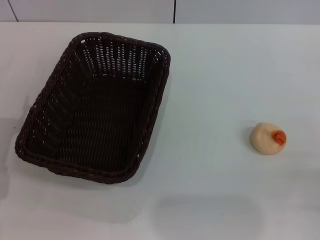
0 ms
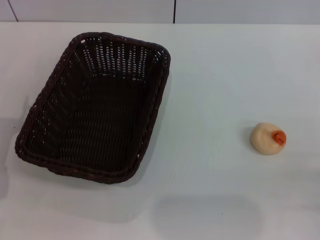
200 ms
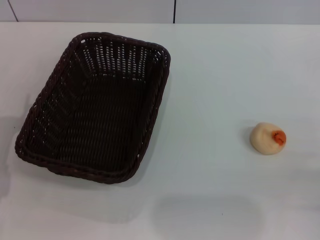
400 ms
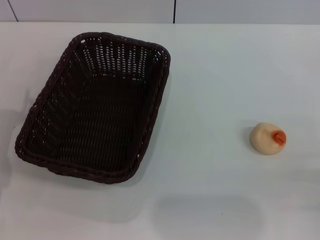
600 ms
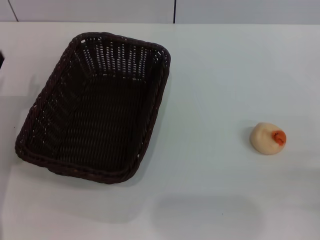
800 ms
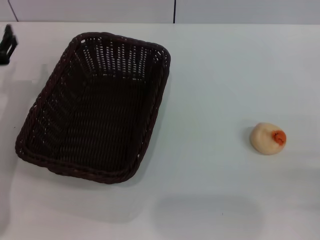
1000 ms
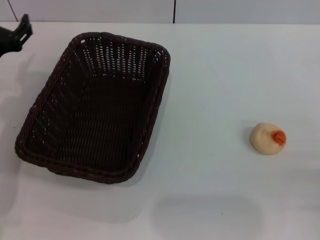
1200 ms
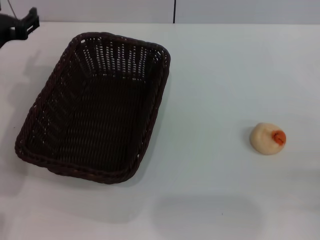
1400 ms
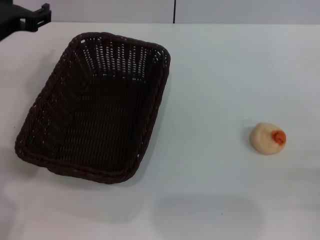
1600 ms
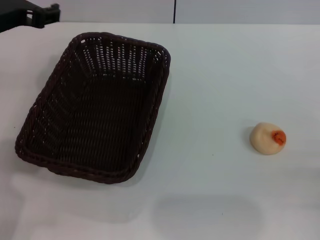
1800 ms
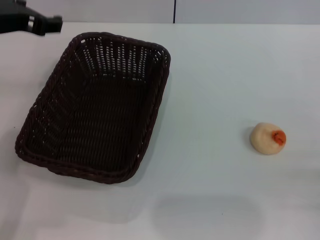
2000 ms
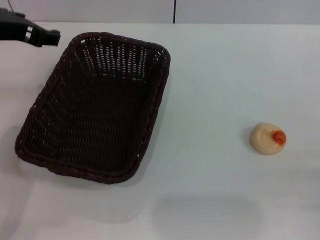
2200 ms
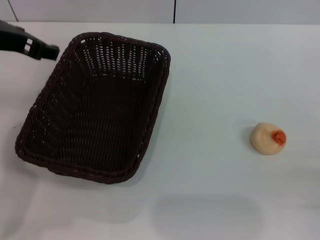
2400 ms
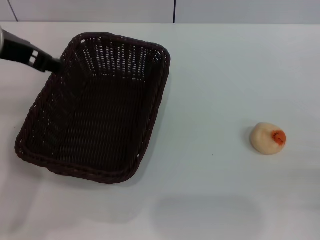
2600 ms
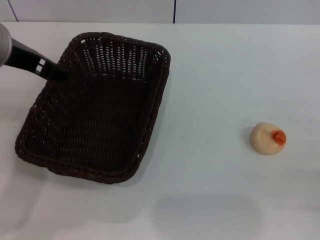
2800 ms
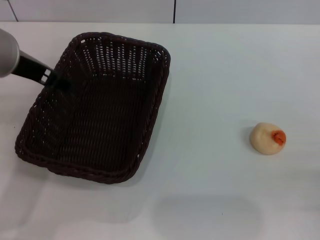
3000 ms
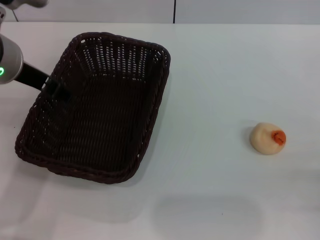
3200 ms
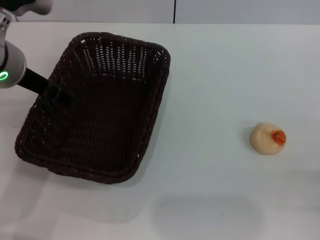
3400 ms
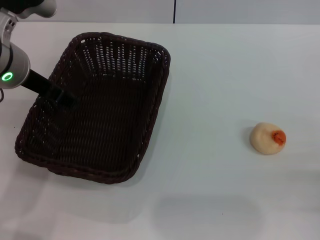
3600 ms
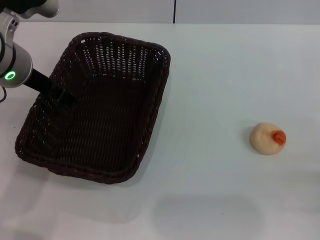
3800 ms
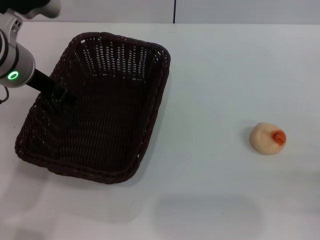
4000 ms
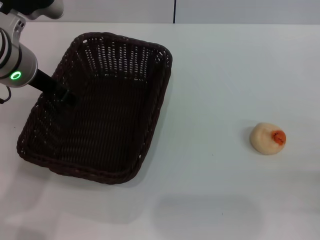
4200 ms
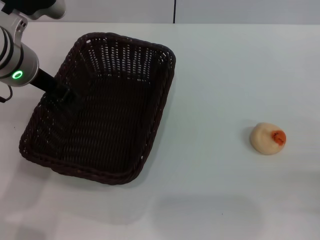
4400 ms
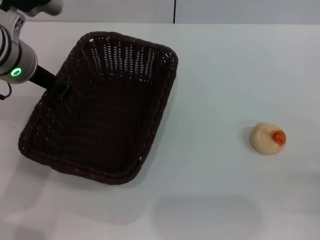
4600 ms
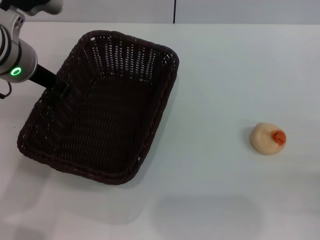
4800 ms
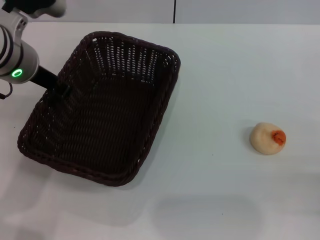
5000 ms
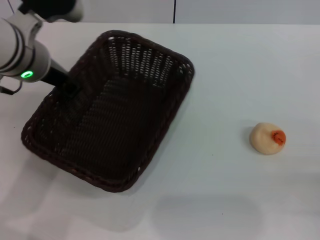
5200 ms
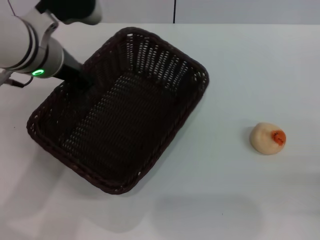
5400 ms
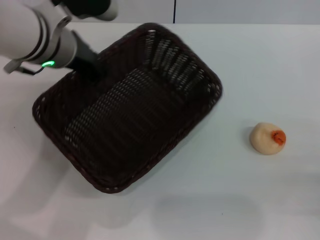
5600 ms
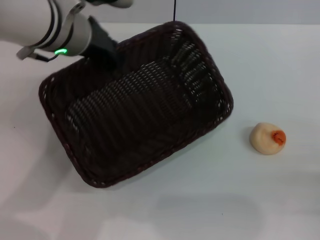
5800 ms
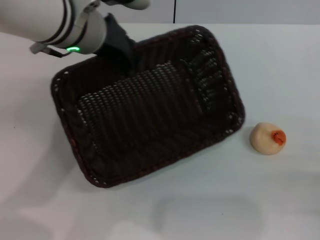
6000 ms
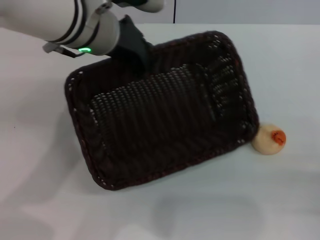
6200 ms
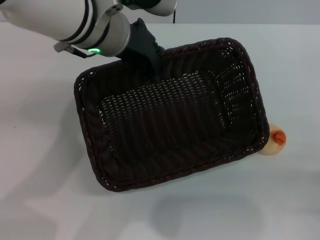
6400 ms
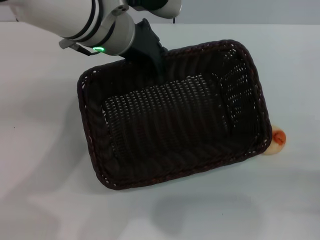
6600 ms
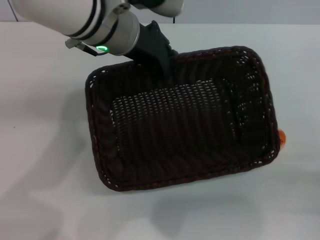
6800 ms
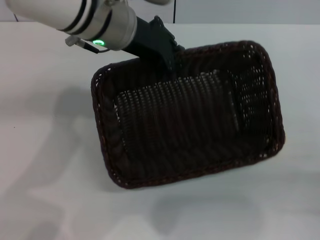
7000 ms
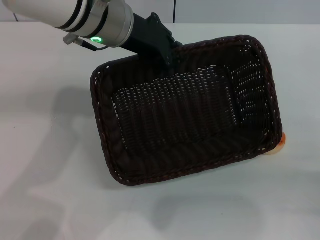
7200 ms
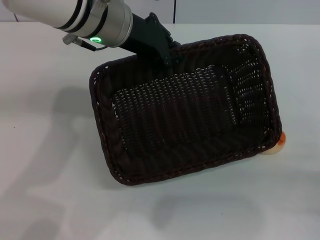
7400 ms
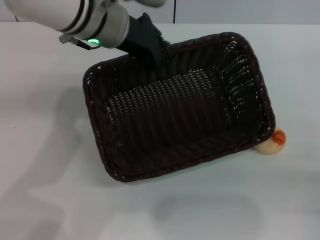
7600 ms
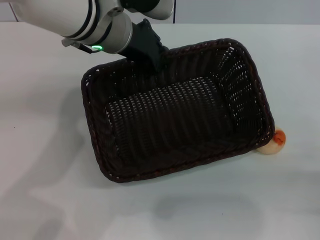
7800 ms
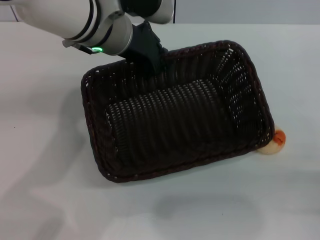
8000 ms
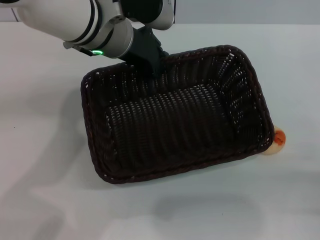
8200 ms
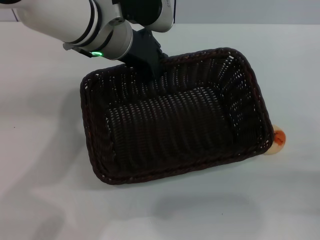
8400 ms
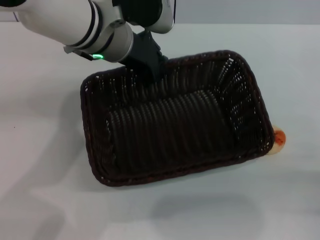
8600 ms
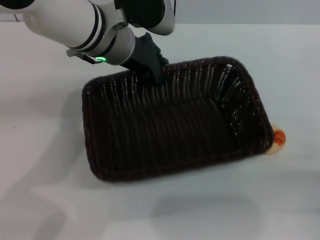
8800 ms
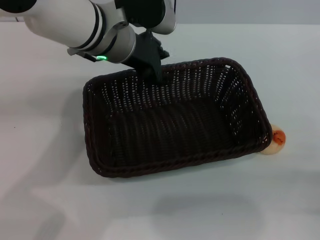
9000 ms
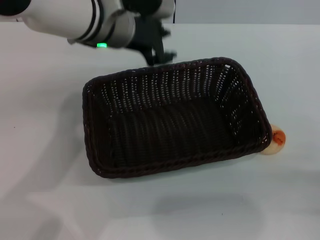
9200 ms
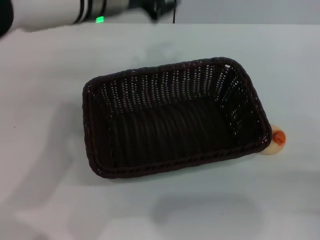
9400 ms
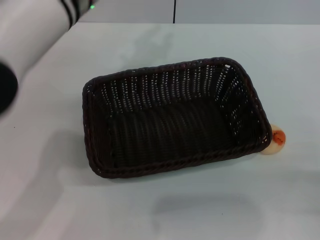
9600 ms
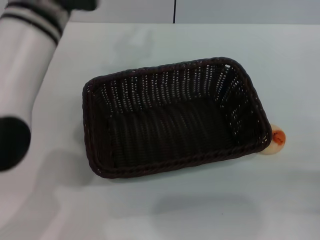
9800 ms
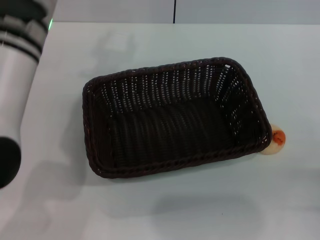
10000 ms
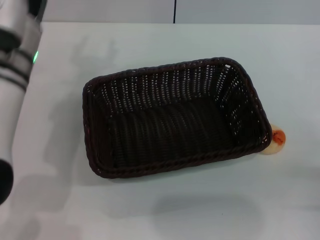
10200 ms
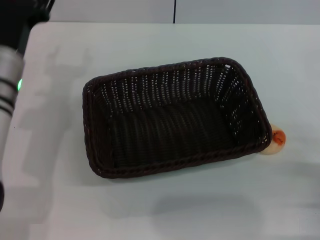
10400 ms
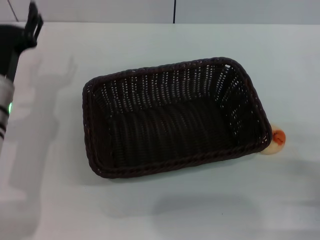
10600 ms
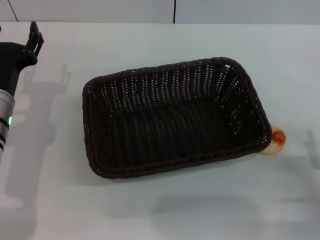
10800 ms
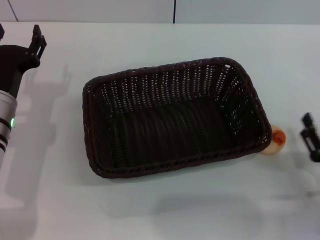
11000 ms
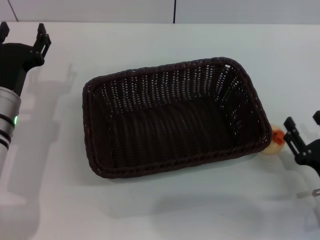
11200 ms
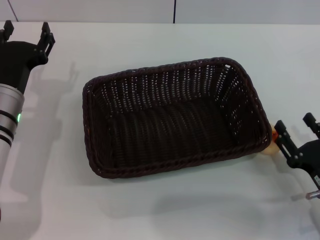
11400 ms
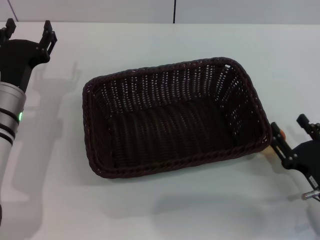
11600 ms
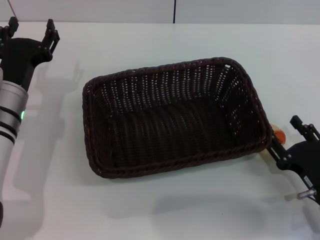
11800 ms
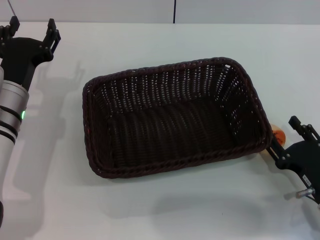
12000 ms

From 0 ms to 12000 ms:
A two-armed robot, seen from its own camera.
Step, from 0 ms to 9200 ms: Move the basket to the center of view with the left gripper.
From 0 ms to 1600 ms: The left gripper is displaced upward and forward by approximately 20 cm.
From 1600 ms to 3000 ms: The left gripper shifts by roughly 5 cm.
From 3000 ms to 4400 ms: The left gripper ends up about 5 cm from where it was.
From 4400 ms to 6000 ms: The left gripper shifts some 10 cm to the right, and closes up.
From 7600 ms to 9000 ms: The grippers make only small movements.
From 9000 ms to 10400 ms: The left gripper heads to the left, downward and backward, covering approximately 15 cm, and opens.
From 10400 ms to 12000 ms: The right gripper is displaced to the left by approximately 5 cm.

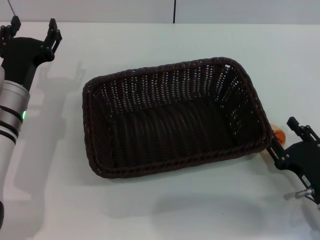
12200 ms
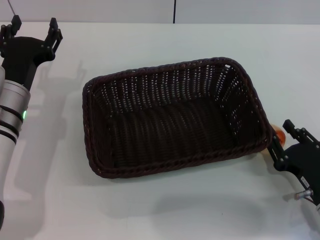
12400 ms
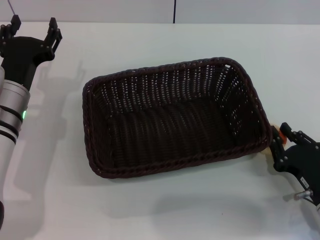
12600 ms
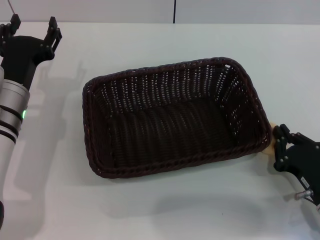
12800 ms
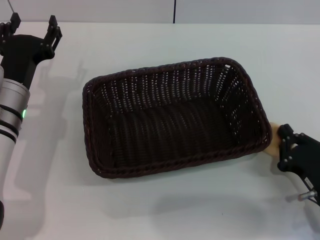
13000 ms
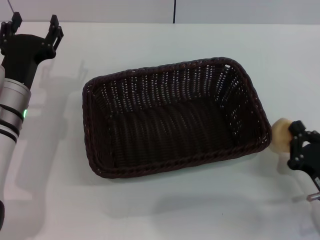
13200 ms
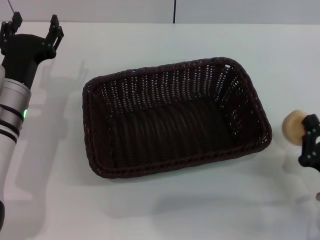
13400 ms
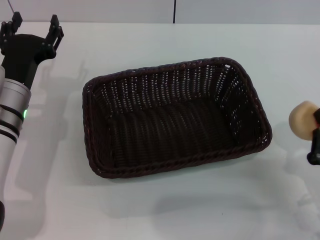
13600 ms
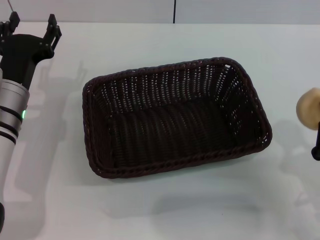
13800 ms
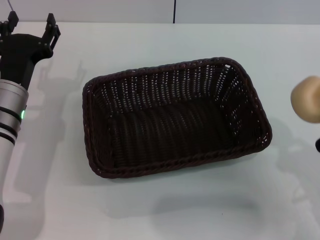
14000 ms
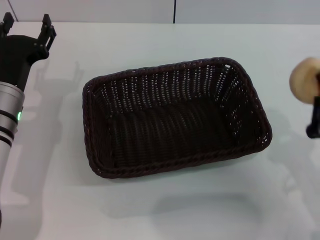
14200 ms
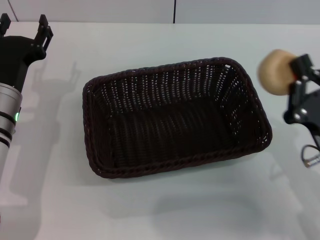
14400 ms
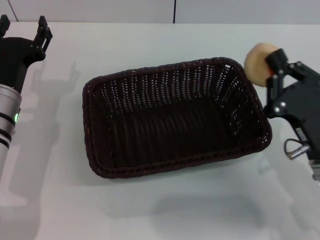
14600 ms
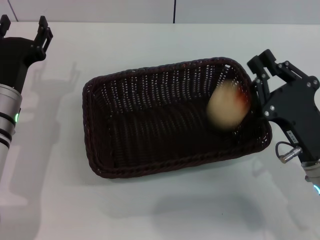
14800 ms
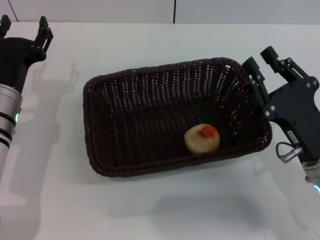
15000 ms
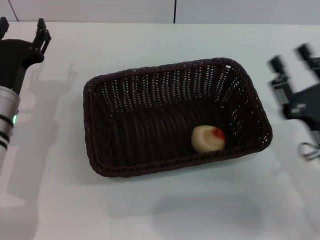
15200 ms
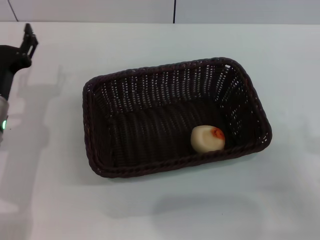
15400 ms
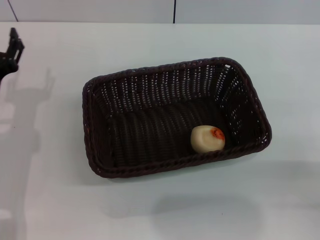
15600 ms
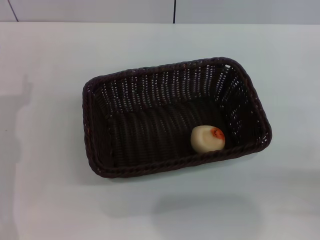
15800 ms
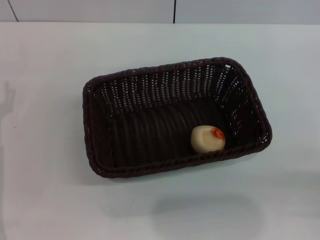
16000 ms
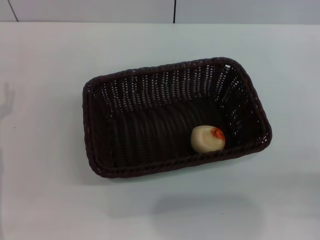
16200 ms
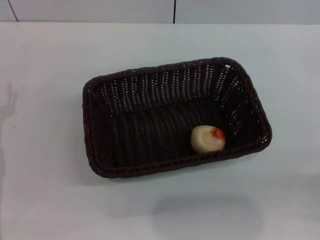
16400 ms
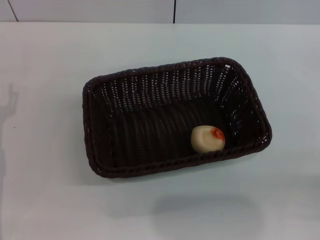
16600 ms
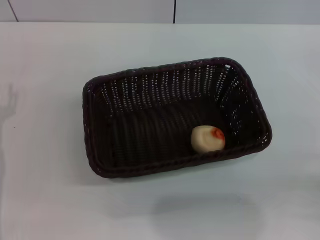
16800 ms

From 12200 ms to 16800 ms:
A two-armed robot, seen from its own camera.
Step, from 14000 ms to 15000 ms: Place the egg yolk pastry into the basket with the right gripper.
From 12200 ms to 13800 ms: The right gripper changes place by roughly 5 cm, and closes up.
From 13800 ms to 15200 ms: The right gripper goes some 5 cm forward.
From 15200 ms to 16800 ms: The left gripper goes about 10 cm to the left and backward. Meanwhile the right gripper is displaced to the right and backward by roughly 15 cm, and opens.
